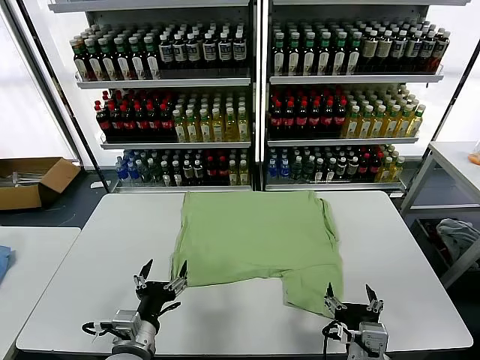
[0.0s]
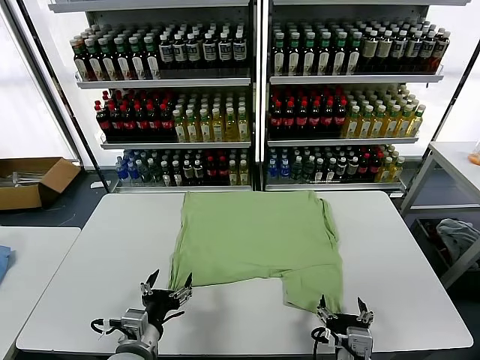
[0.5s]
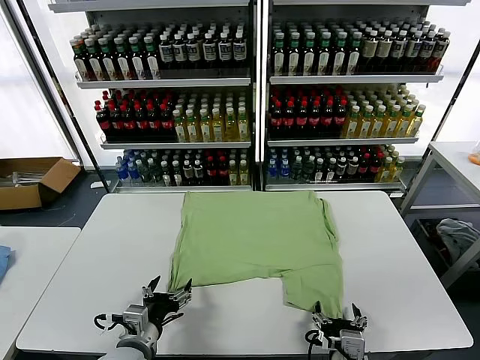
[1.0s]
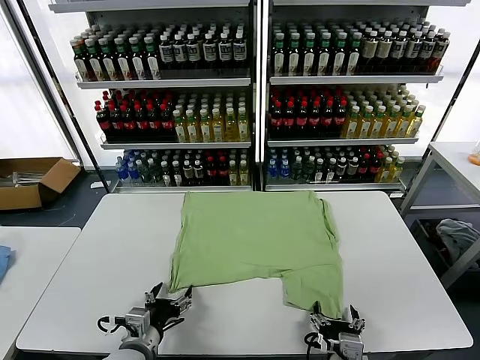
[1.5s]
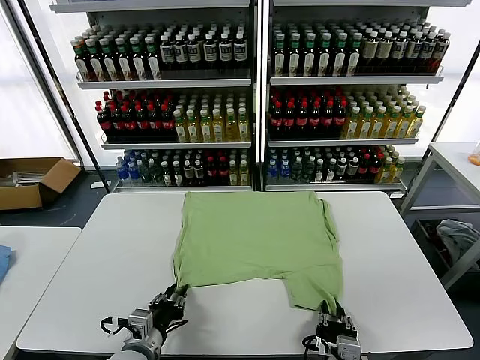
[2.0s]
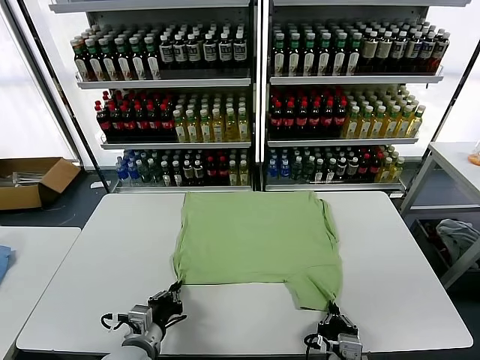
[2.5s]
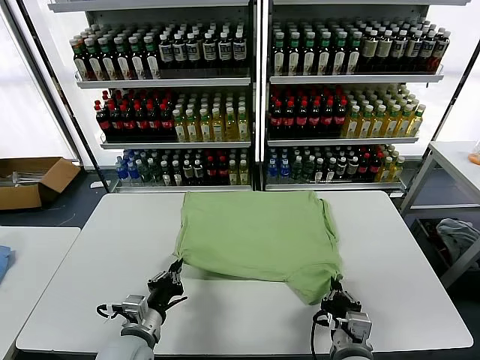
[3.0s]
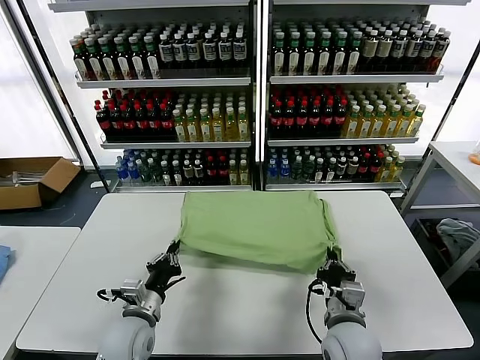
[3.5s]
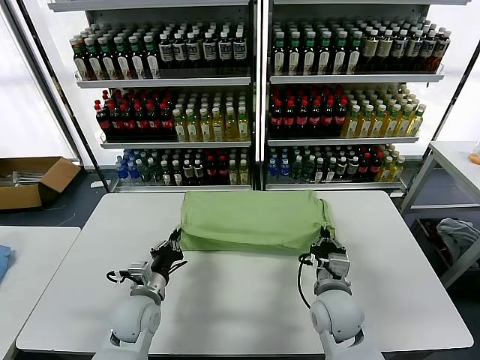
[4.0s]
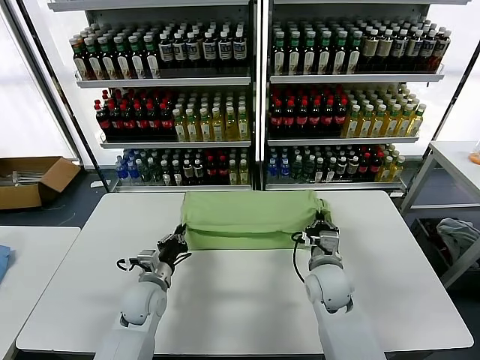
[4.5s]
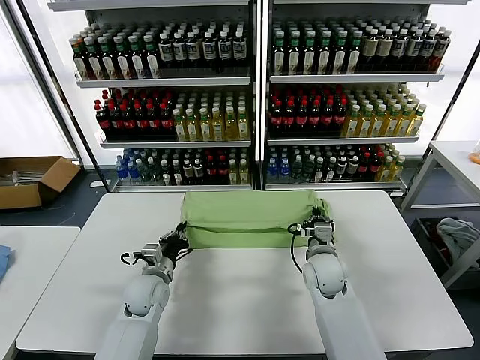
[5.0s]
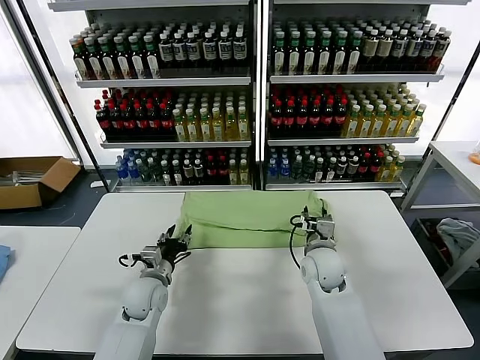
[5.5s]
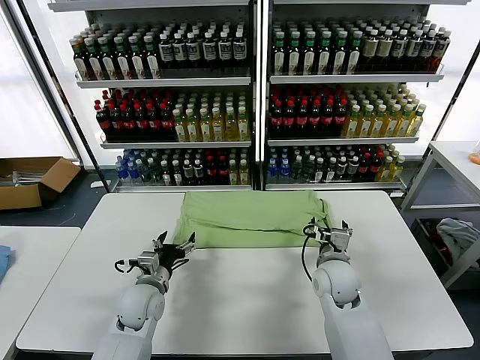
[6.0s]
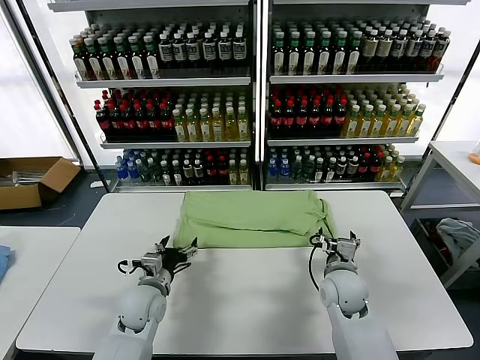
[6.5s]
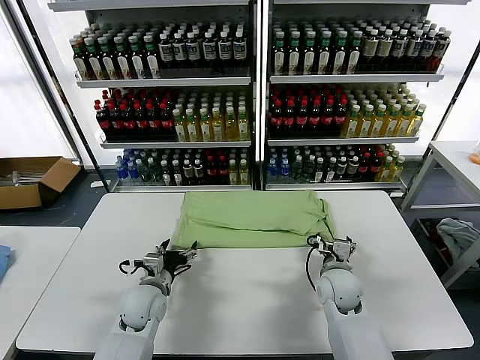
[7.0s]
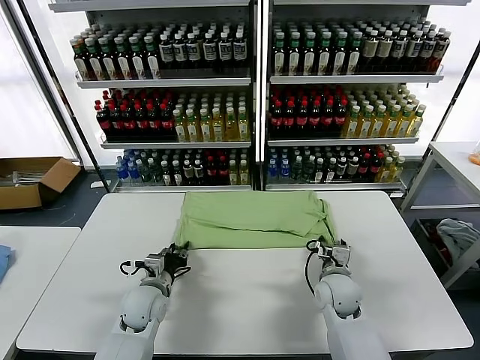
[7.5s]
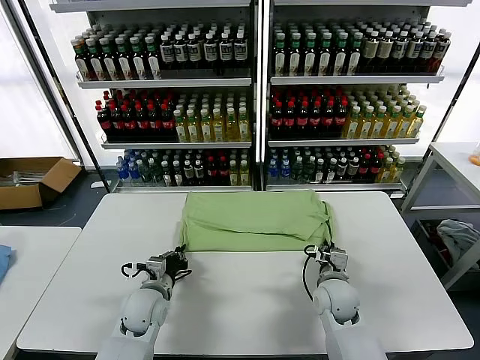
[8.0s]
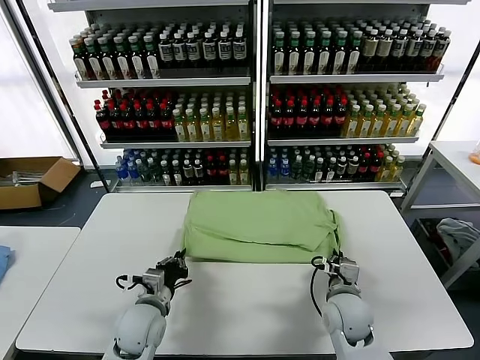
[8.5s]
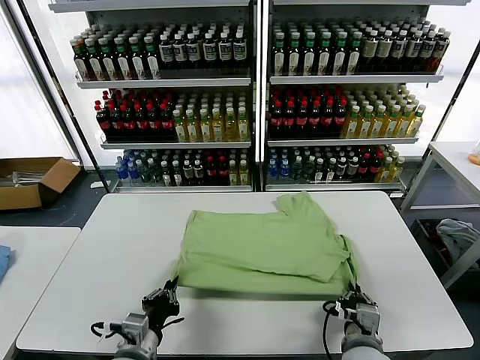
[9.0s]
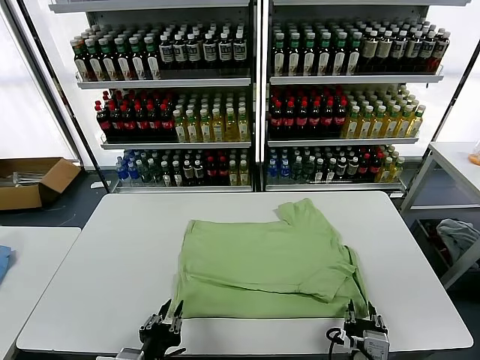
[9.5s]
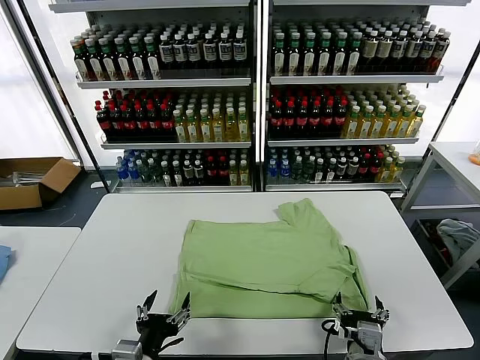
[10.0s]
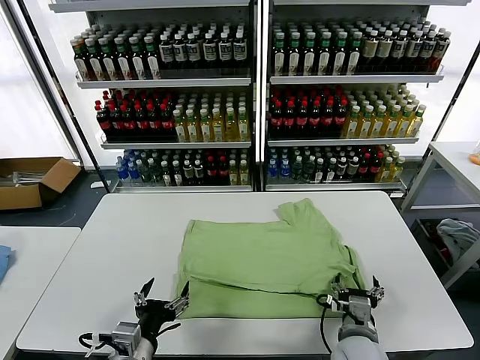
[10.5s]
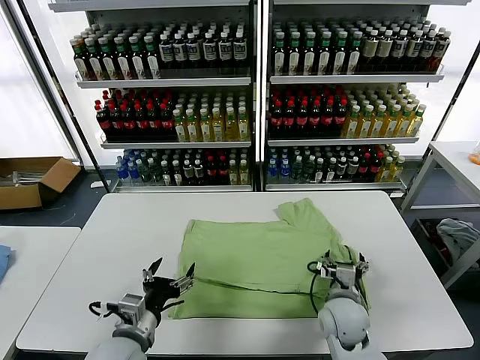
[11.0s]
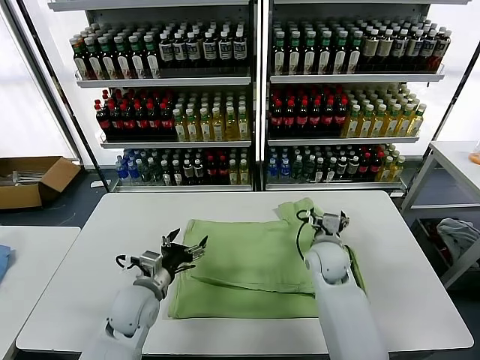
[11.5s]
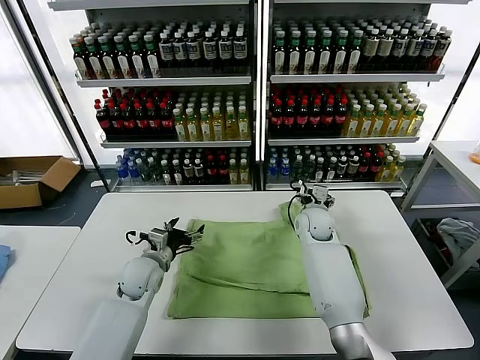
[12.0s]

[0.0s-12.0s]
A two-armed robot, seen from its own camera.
Task of the whole recording: fold and organize the clothes.
Step, 0.0s to 2.0s: use both grippers simultaneously to clamp the lower edge of the clothing fabric.
Step, 2.5s to 5.0s: use both grippers to drag the lower edge of the fabric forward and fold it over the upper edge.
Step, 6.0s to 9.5s: Drag the clothes downward with both gripper.
2.0s to 4.0s: The left gripper shifts approximately 10 cm forward. Meanwhile the right gripper shifts roughly 20 cm forward.
4.0s to 6.0s: The right gripper opens its fingers; the left gripper opens its fingers.
6.0s to 8.0s: The left gripper closes its fingers. The right gripper goes some 5 cm downward, and closes its fingers.
8.0s to 10.0s: Both grippers travel together backward, some 20 cm. The left gripper opens; the right gripper opens.
10.0s to 12.0s: Both grippers travel together forward, some 30 cm.

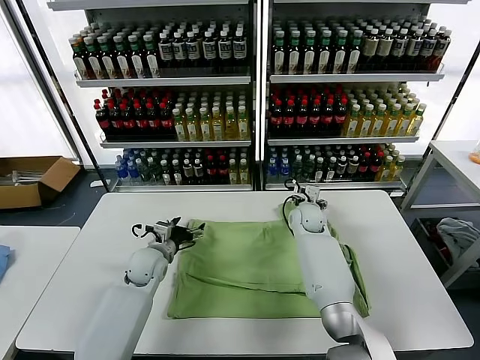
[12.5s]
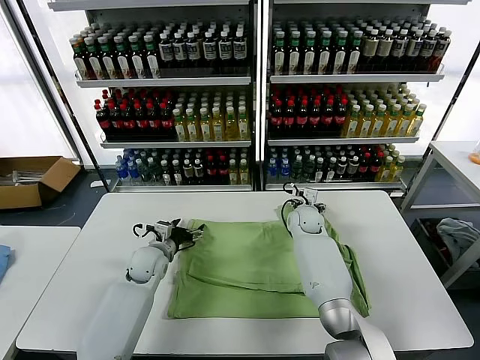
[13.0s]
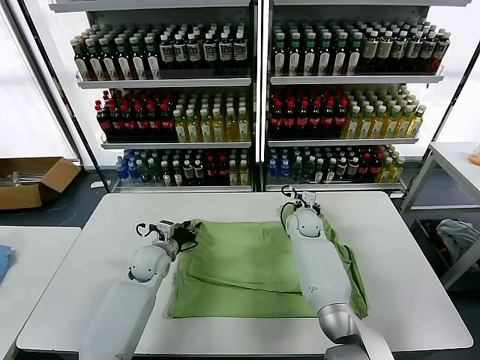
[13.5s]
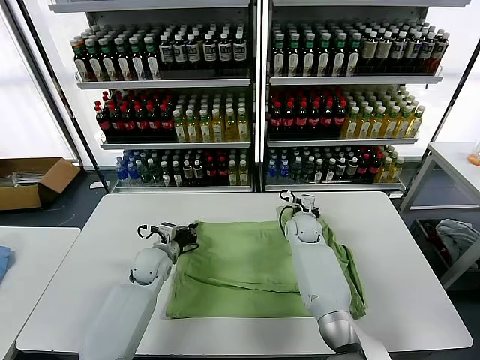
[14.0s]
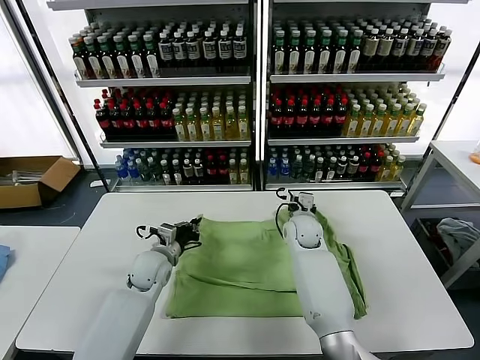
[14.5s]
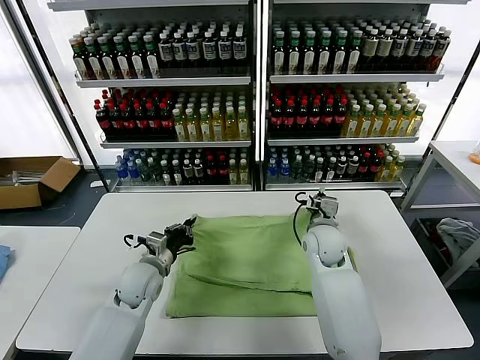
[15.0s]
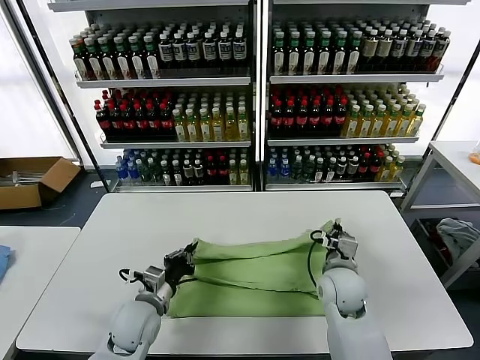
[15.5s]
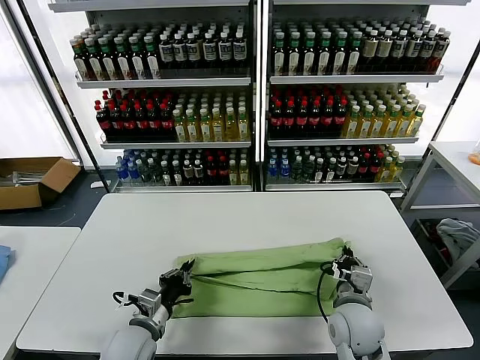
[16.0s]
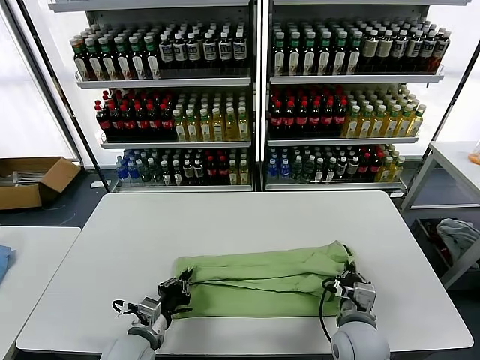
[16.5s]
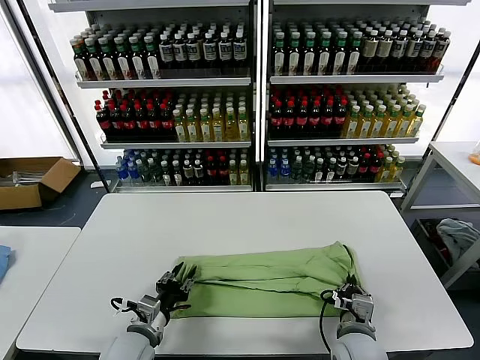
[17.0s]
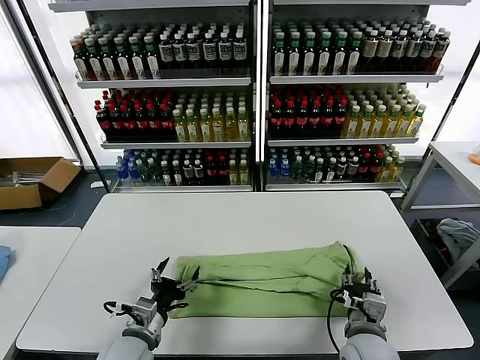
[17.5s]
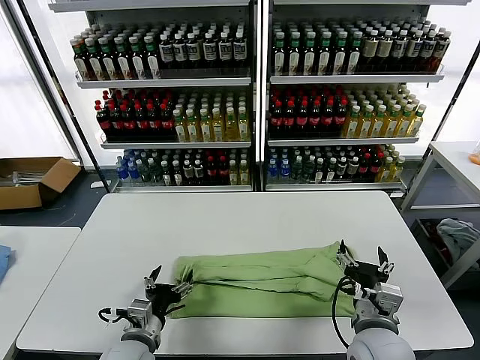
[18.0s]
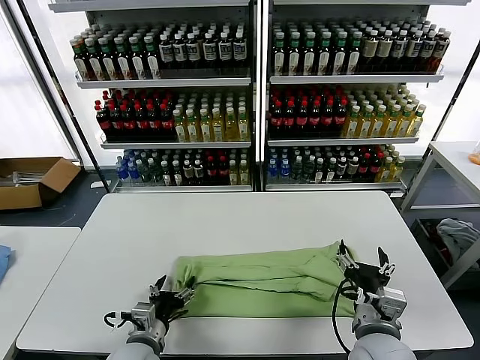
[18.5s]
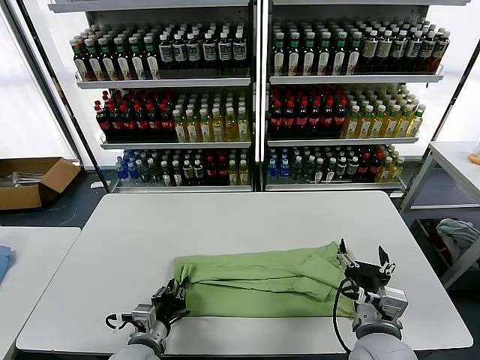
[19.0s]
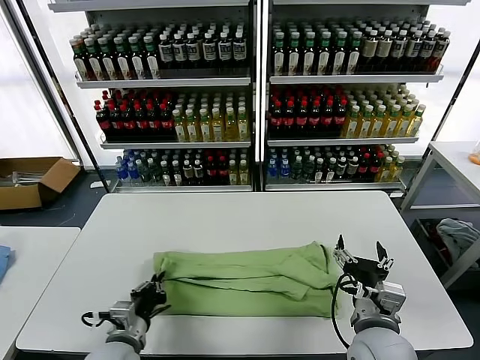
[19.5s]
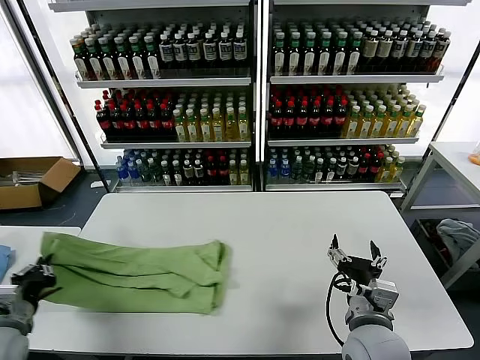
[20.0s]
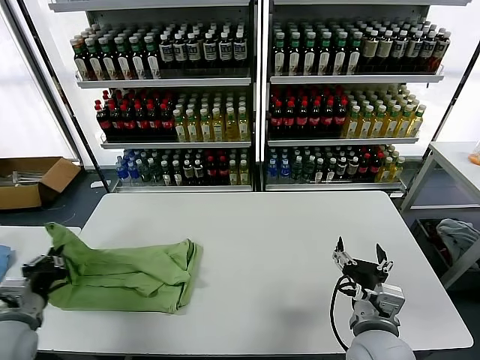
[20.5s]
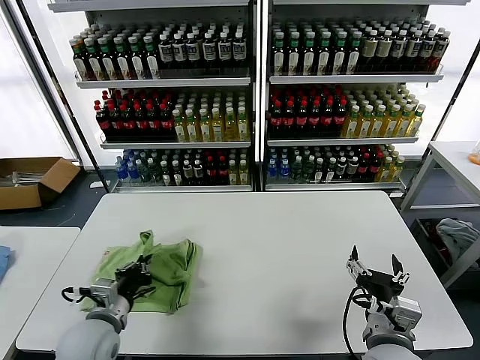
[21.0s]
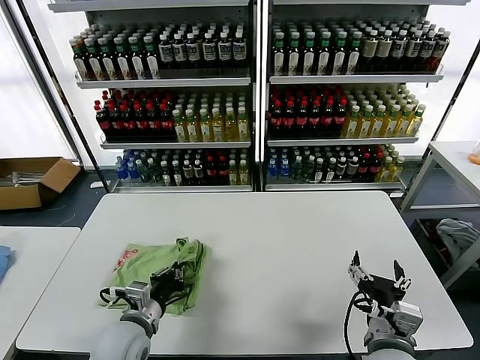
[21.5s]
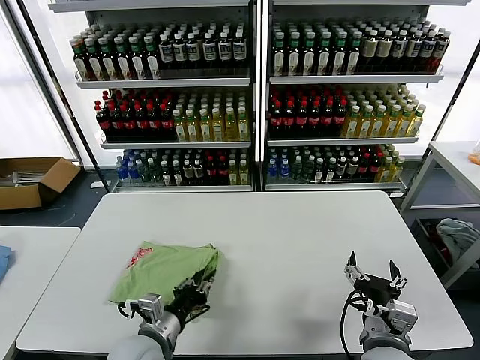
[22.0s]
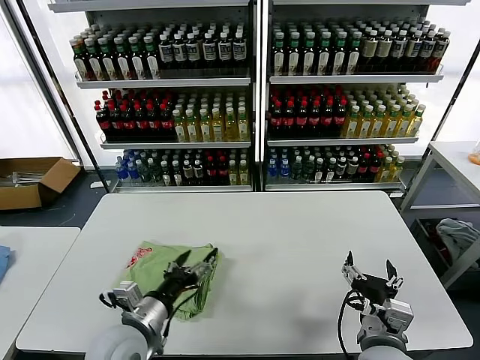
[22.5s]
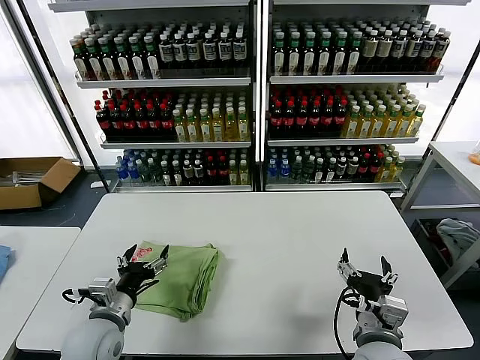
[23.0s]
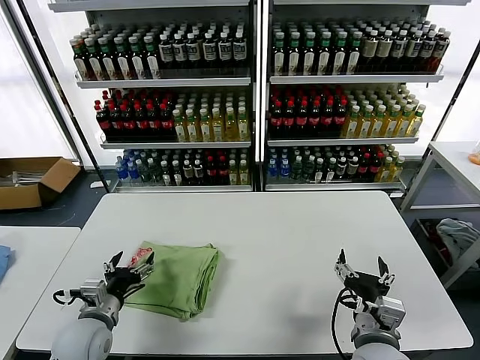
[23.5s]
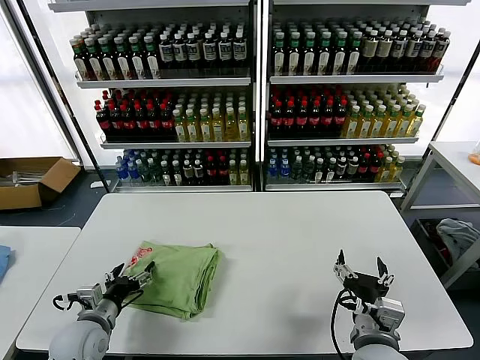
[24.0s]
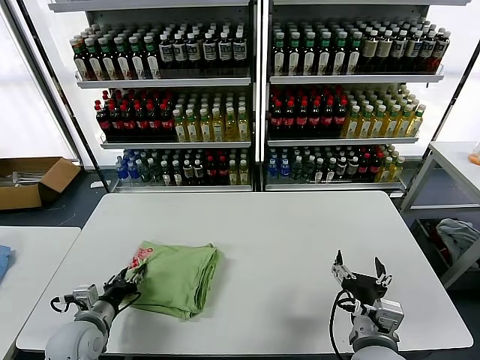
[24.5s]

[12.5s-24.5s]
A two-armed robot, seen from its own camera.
Task of the whole recording: fold and organize the clothes.
Step, 14.0s to 17.5s: use both grippers to drag the upper edge of the fabric backward and fold it over the lower edge.
Step, 18.0s to 19.0s: use the left gripper to clamp the left edge of the fabric.
Step, 19.5s to 22.0s: use the left gripper to drag the left edge of the fabric to the left and folds it over the right edge.
12.5s to 14.5s: The left gripper closes, while the right gripper shifts roughly 5 cm backward, and closes its fingers.
14.5s to 16.5s: The two grippers go roughly 25 cm backward.
16.5s to 18.5s: The right gripper is displaced upward by approximately 5 cm, and opens up. Meanwhile the left gripper opens up.
18.5s to 20.5s: The left gripper is displaced to the left and upward by roughly 25 cm, and closes up.
20.5s to 22.5s: The left gripper heads to the right, covering about 20 cm, and opens.
22.5s to 24.5s: The left gripper goes some 15 cm to the left and downward.

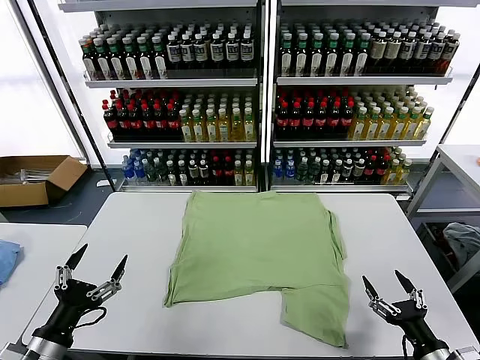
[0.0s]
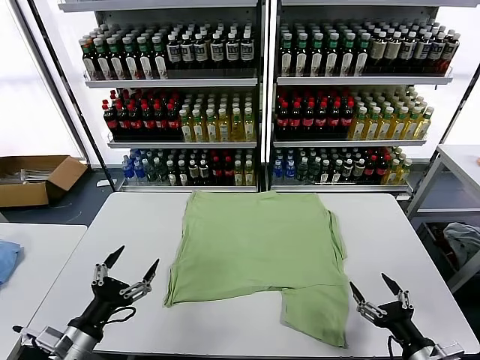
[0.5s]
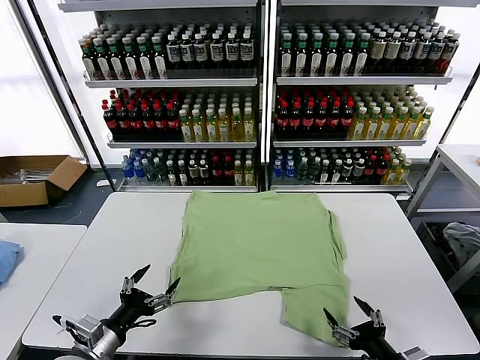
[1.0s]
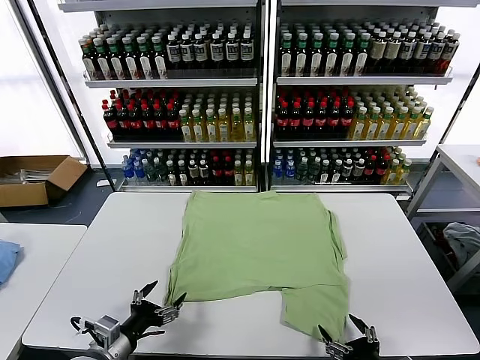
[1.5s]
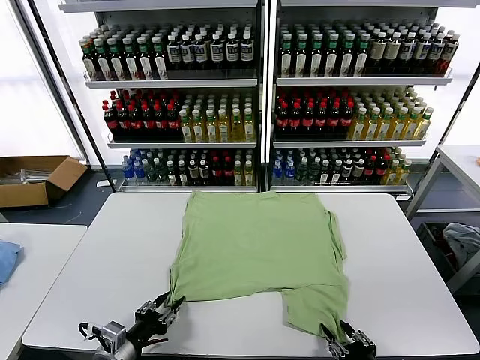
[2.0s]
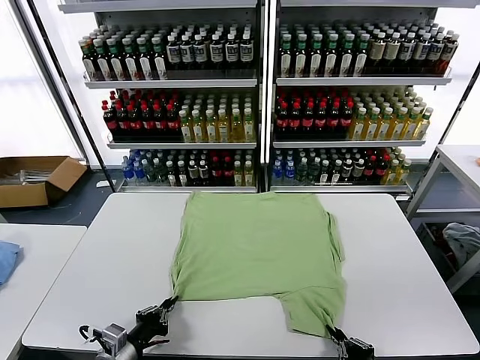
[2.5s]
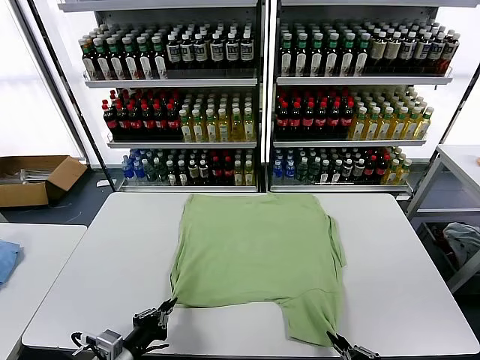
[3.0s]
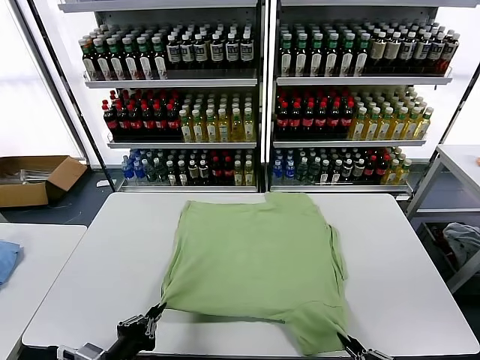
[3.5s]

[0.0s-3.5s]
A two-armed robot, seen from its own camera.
Task of the whole recording: fold and organize the clothes.
Step, 0.0s to 2.0s: use both grippers simultaneously to clamp the lower edge of the clothing fabric.
2.0s to 3.5s: The left gripper travels upward and backward by about 10 cm, and closes up. Meanwhile the right gripper ends up roughly 5 cm from where it was.
